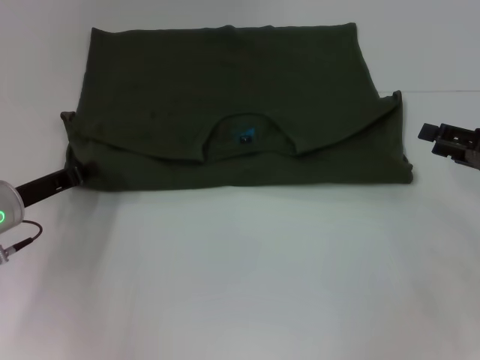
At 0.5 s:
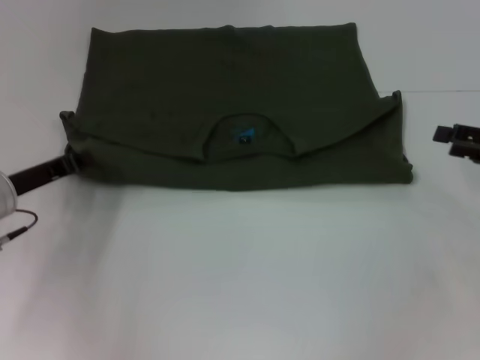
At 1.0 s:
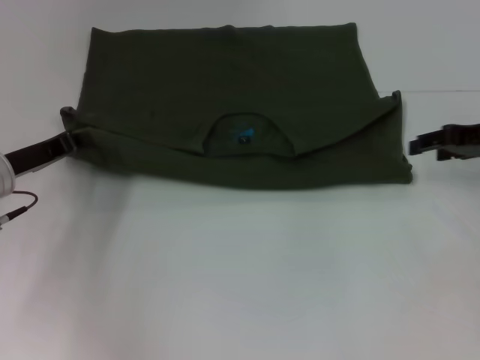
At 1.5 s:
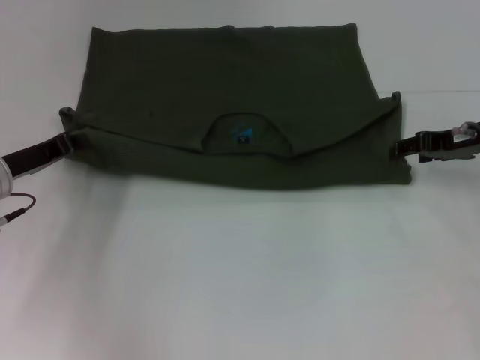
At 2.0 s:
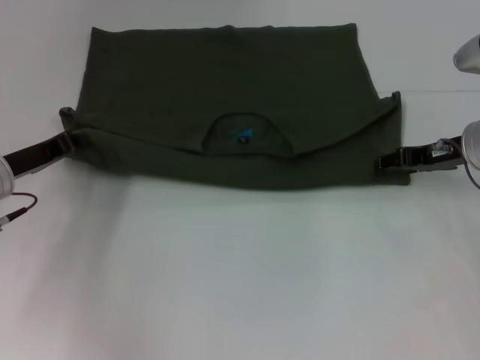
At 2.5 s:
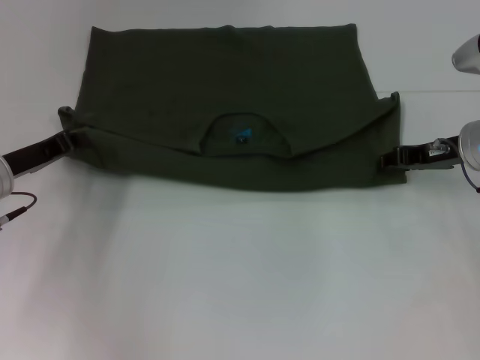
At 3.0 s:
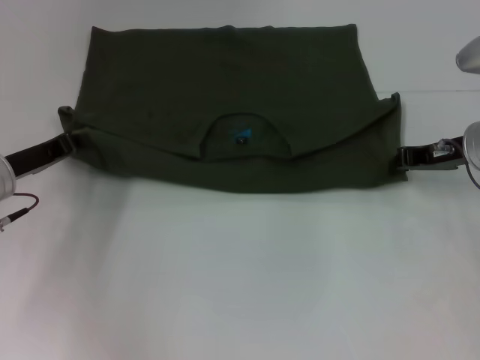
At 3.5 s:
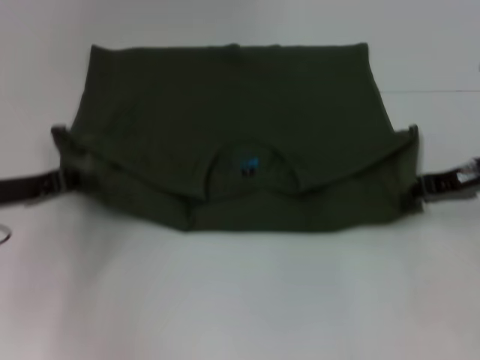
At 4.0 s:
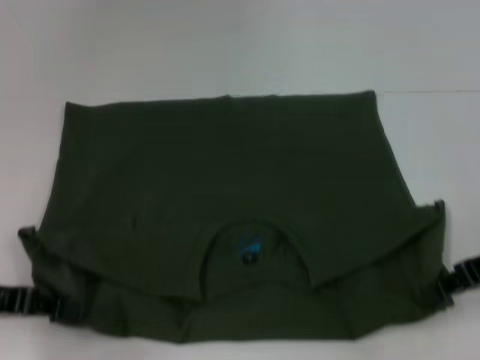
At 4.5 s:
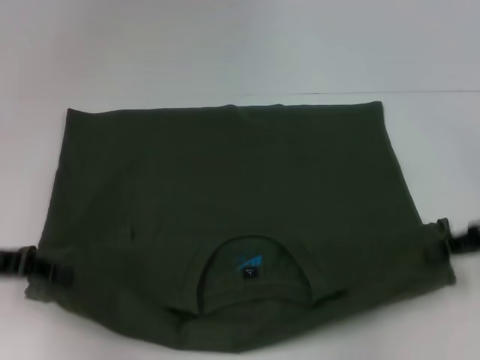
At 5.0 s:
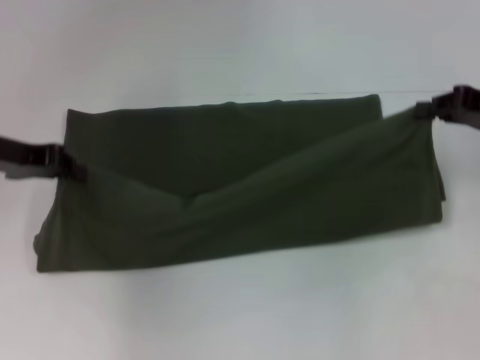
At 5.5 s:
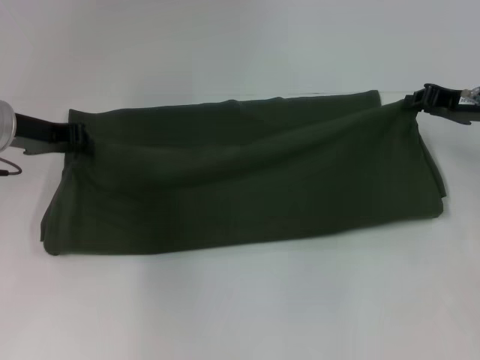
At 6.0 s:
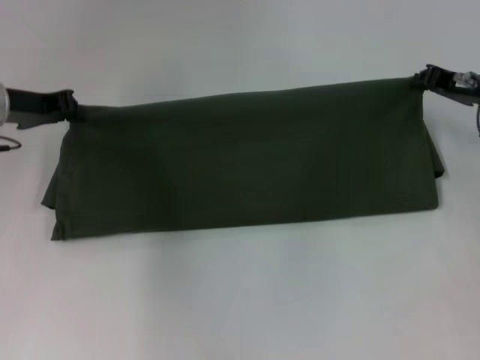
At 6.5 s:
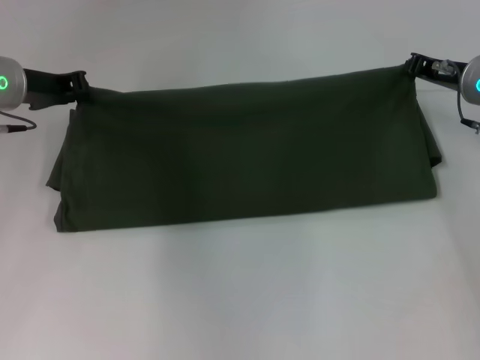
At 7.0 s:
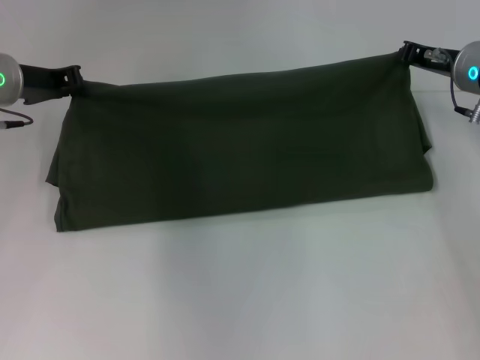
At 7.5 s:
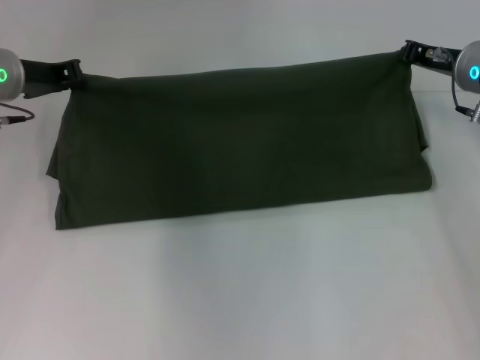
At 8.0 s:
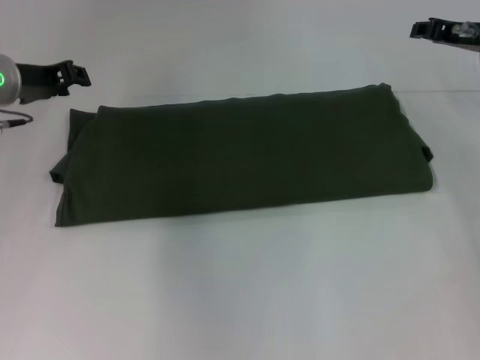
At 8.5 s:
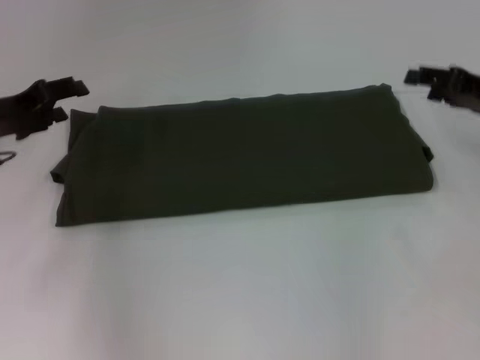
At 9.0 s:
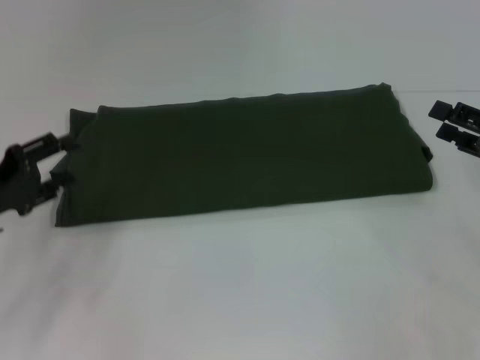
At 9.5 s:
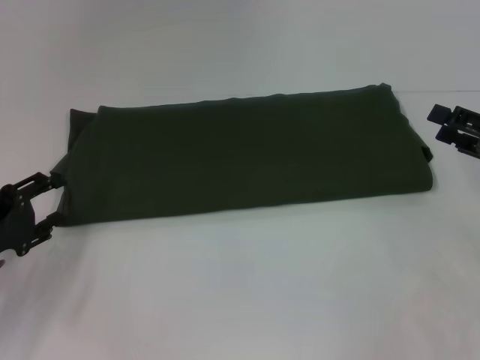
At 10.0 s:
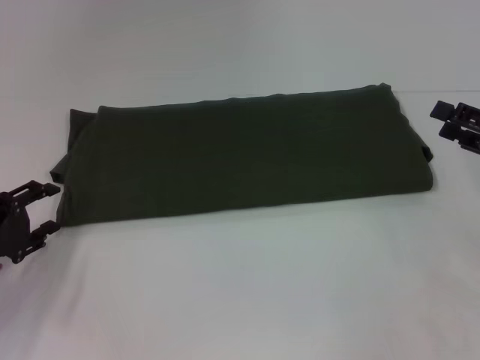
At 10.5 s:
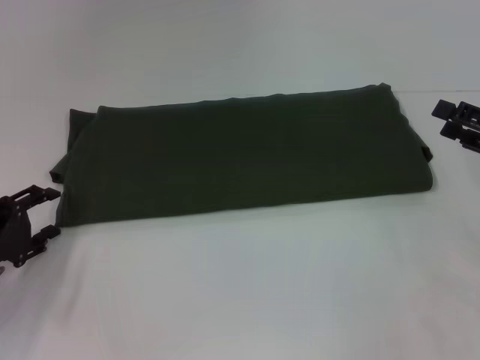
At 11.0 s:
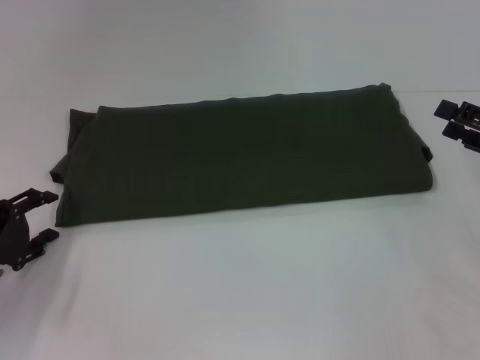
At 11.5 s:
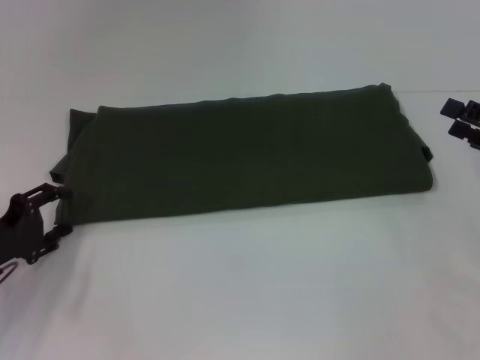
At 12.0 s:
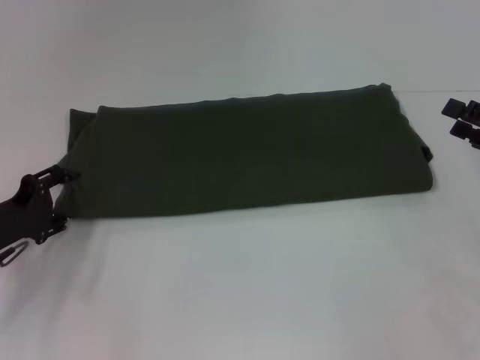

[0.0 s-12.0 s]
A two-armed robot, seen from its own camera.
Step, 0.0 to 4.0 s: Pull the clothes with your left hand.
Step, 0.0 to 4.0 s: Pull the clothes with your right hand.
Step, 4.5 to 8.0 s: Fold the clothes with your right hand.
0.0 to 2.0 s: The right gripper shifts some 10 cm forward and to the left.
2.0 to 4.0 s: Both grippers travel together backward, about 10 cm. The right gripper closes.
4.0 to 6.0 s: The two grippers go approximately 15 cm forward.
6.0 to 8.0 s: The right gripper ends up about 5 cm from where it was.
8.0 to 10.0 s: The right gripper travels backward and to the right by about 15 cm, and opens up, while the left gripper is displaced backward and downward by roughly 20 cm, and opens.
10.0 to 12.0 s: There are only small adjustments of the grippers.

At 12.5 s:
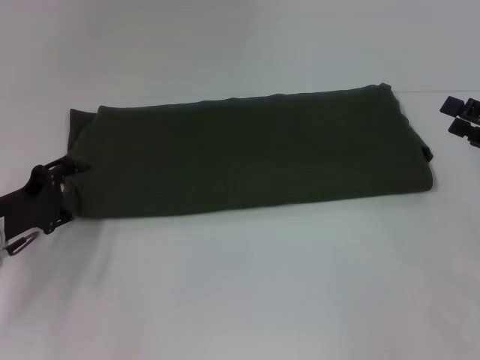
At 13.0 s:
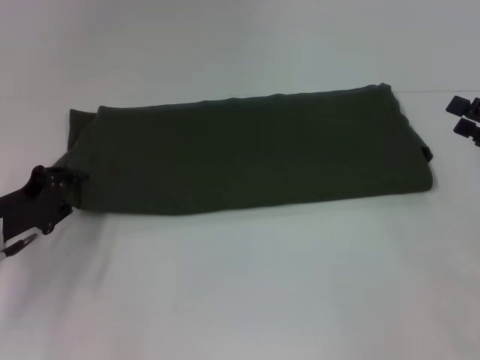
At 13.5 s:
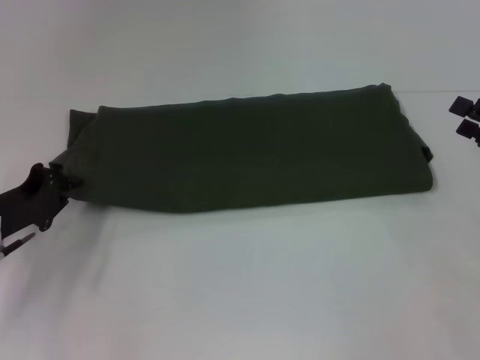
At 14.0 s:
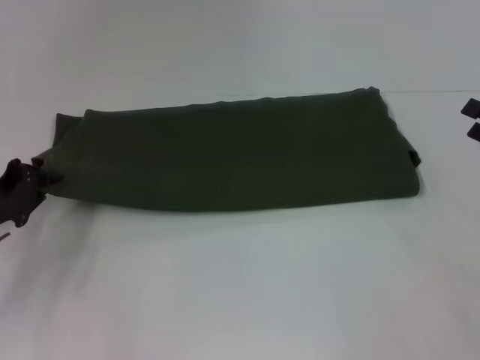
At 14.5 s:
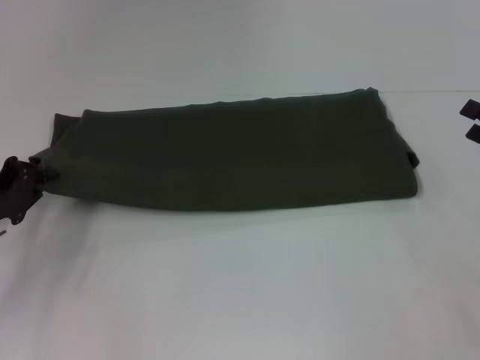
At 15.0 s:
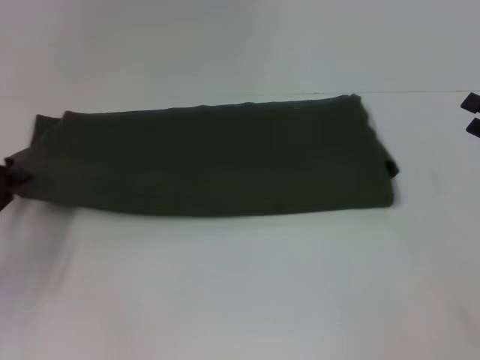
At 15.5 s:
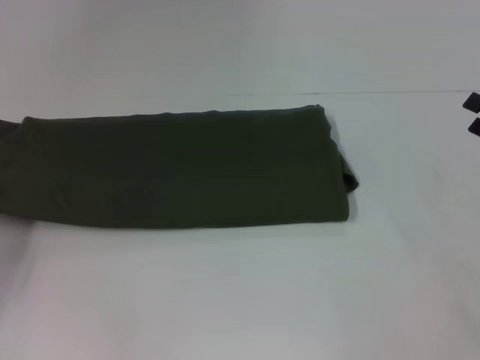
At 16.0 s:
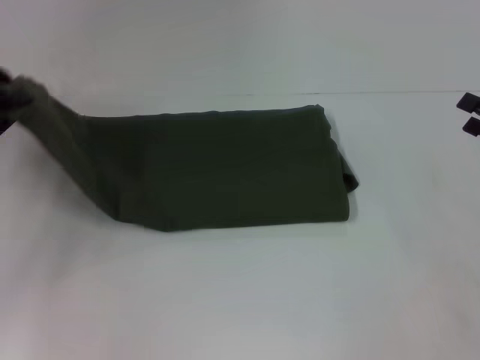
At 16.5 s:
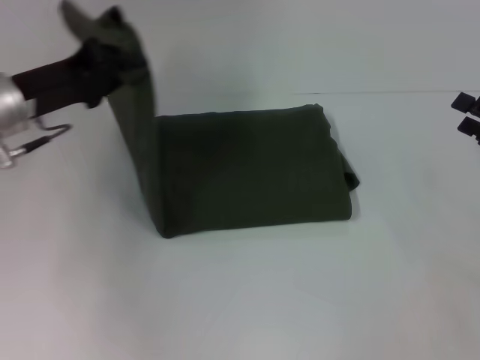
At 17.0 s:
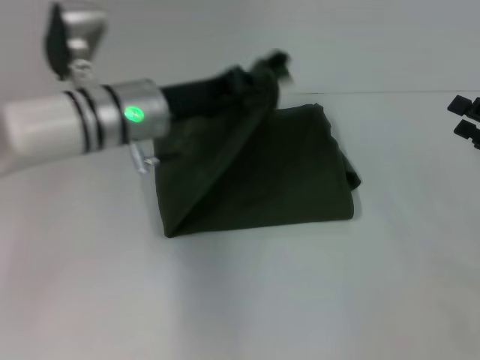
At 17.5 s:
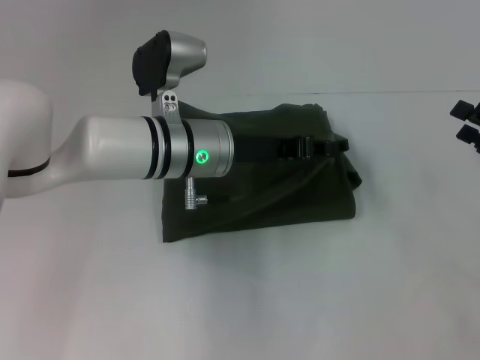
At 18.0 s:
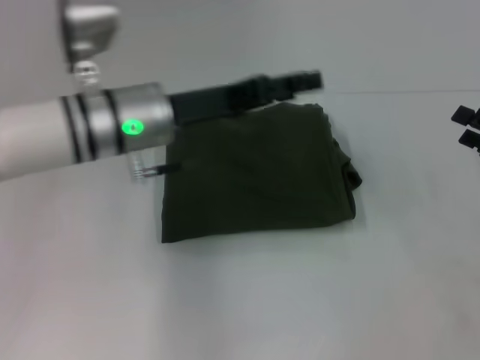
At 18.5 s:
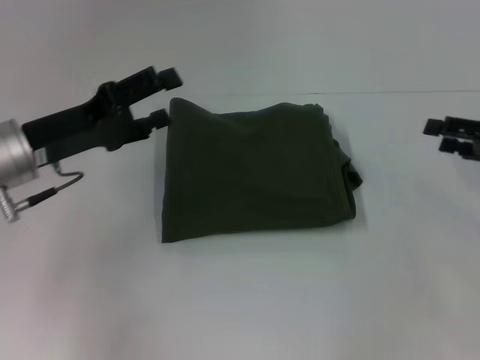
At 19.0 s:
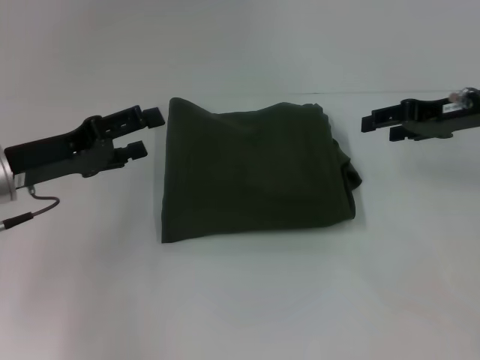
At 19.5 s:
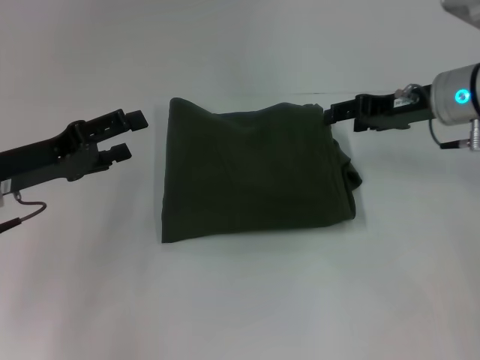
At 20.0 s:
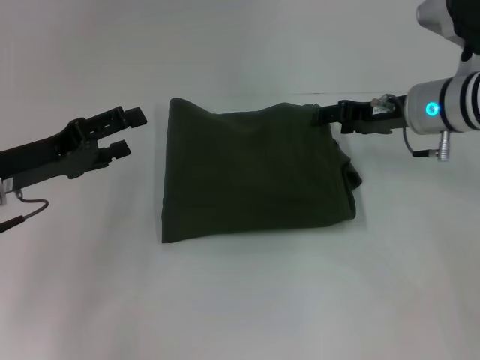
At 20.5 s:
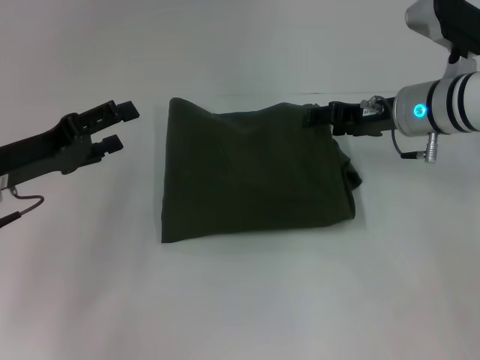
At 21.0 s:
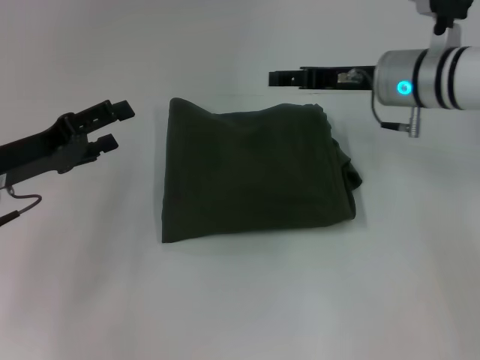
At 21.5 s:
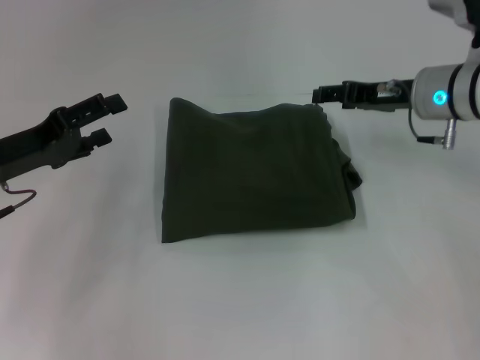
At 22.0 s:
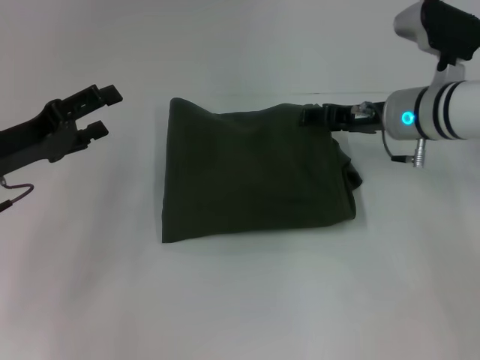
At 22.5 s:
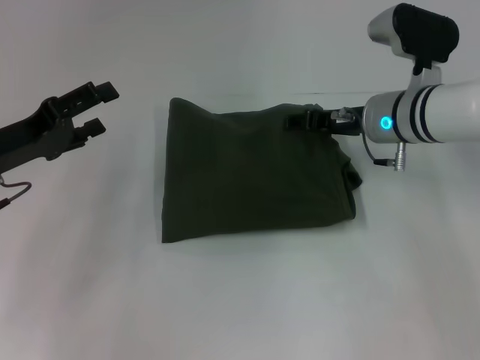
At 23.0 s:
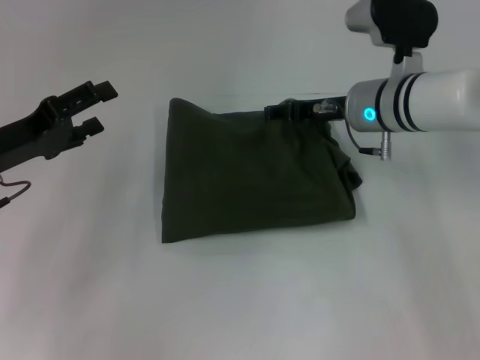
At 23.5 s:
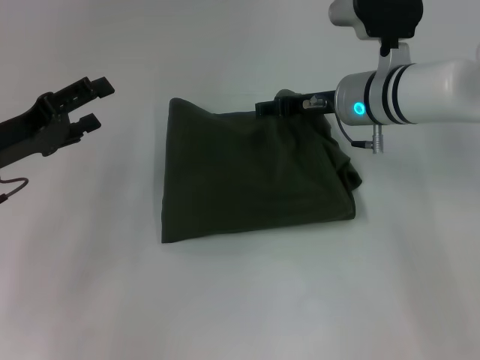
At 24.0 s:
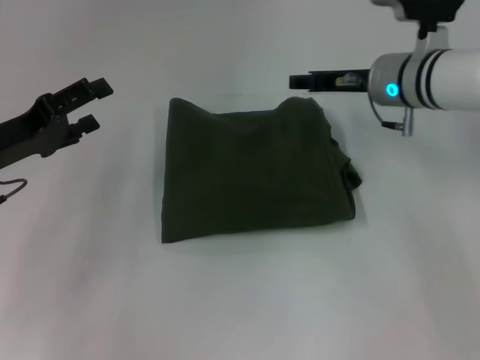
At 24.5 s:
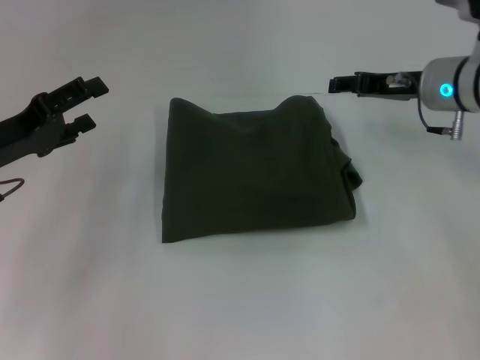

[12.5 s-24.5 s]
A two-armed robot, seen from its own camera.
Step, 12.5 to 18.5 s: Fold the clothes with your left hand.
12.5 to 14.5 s: The left gripper closes.
14.5 to 16.5 s: The left gripper goes approximately 15 cm upward, to the right and forward.
16.5 to 18.5 s: The left gripper moves some 20 cm to the right and comes back, and opens up.
18.5 to 20.5 s: The right gripper heads to the left and forward, covering roughly 20 cm.
22.5 to 24.5 s: The right gripper goes approximately 5 cm to the right.

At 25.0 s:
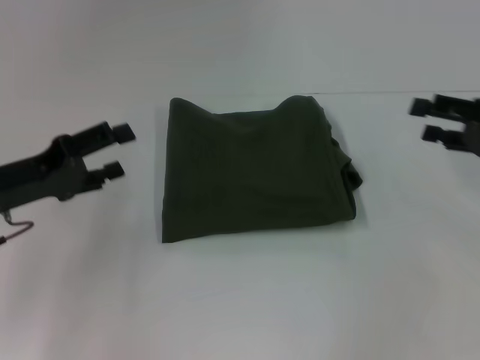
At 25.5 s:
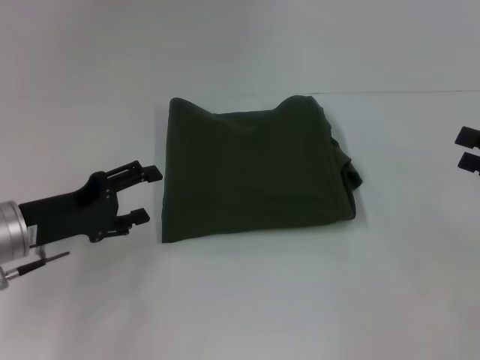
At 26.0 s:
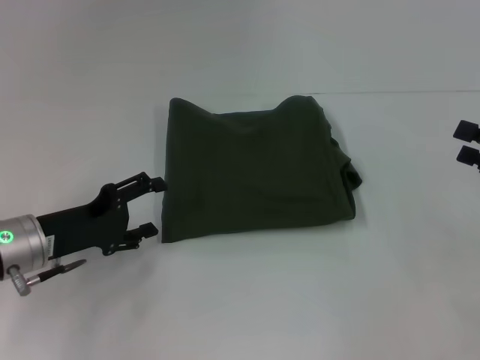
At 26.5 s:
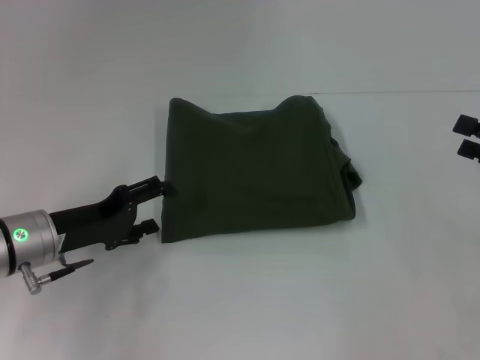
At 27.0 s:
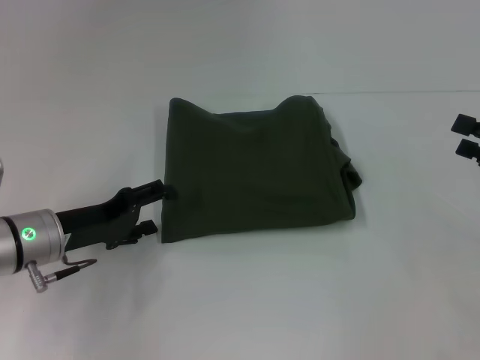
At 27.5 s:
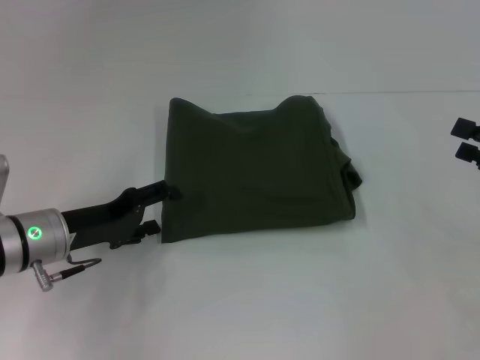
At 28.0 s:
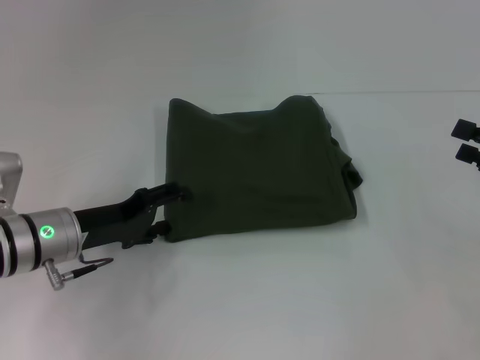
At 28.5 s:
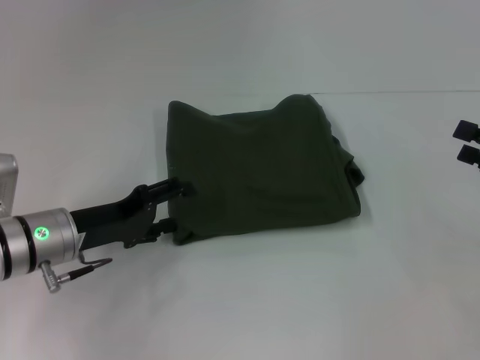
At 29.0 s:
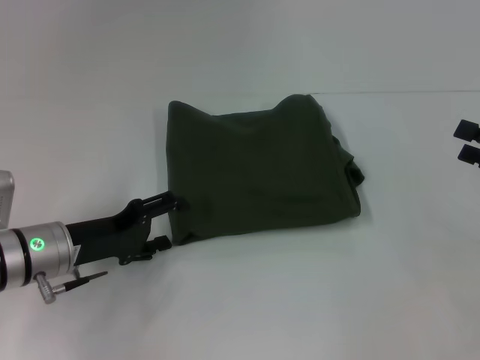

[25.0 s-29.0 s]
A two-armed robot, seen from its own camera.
25.0 to 27.0 s: The right gripper moves roughly 5 cm. The left gripper goes approximately 5 cm downward.
27.0 to 29.0 s: The grippers stay close to where they were, moving slightly.
